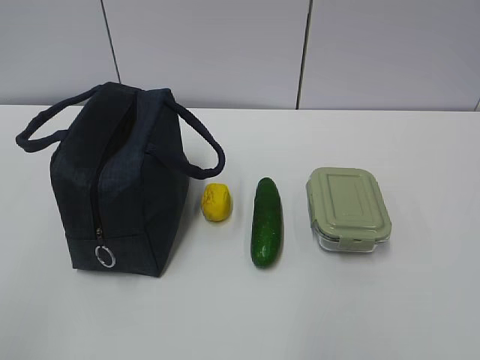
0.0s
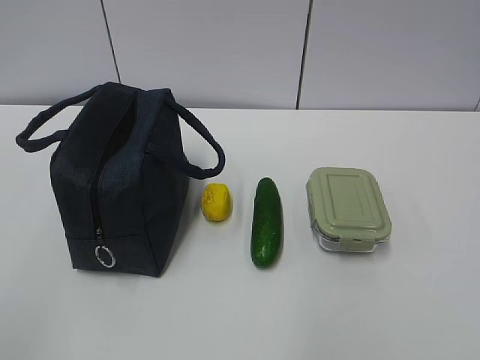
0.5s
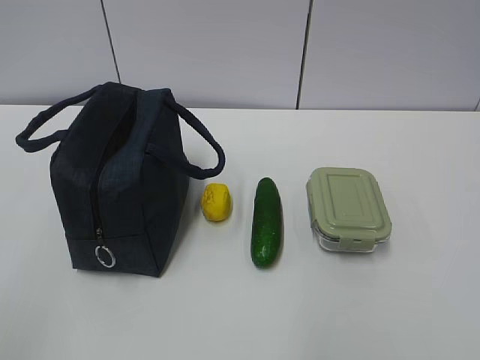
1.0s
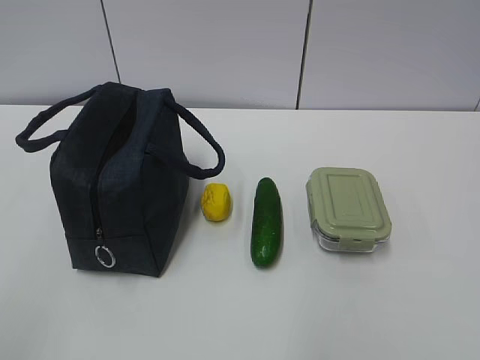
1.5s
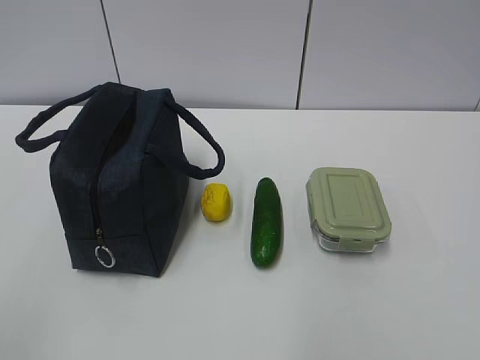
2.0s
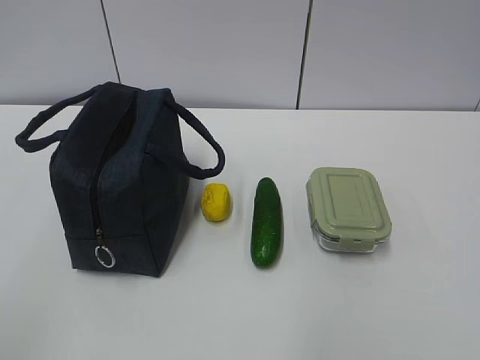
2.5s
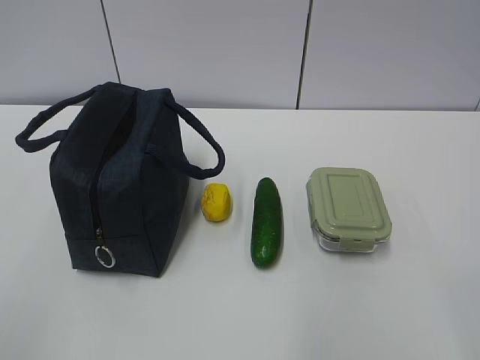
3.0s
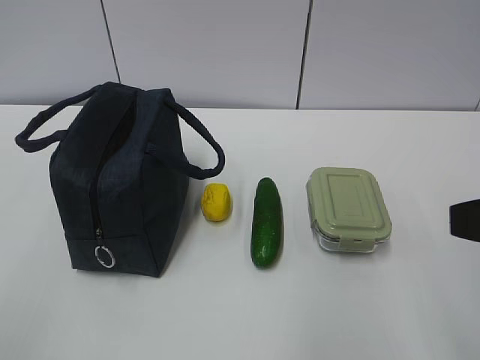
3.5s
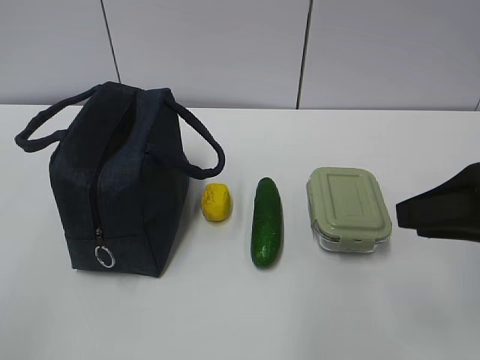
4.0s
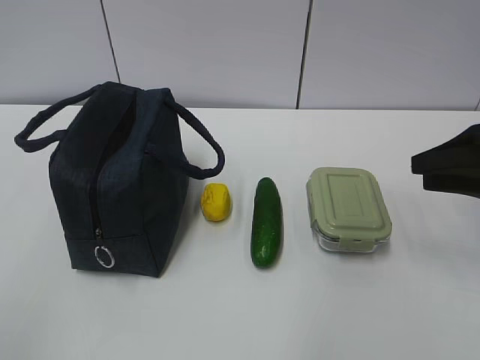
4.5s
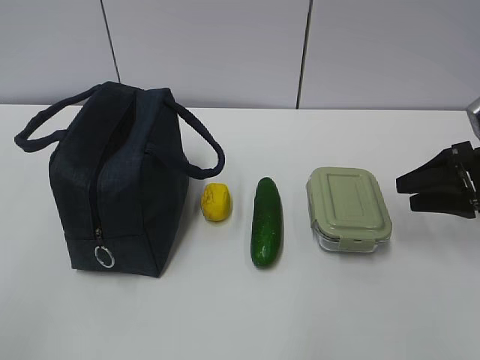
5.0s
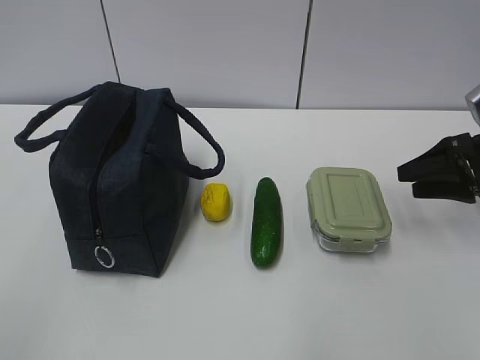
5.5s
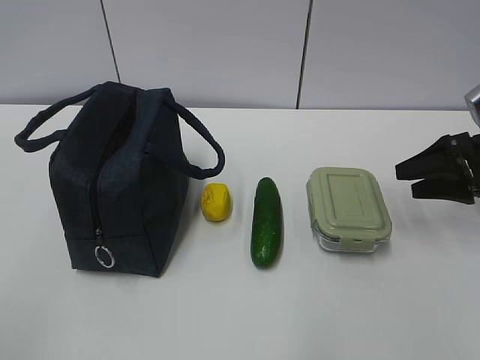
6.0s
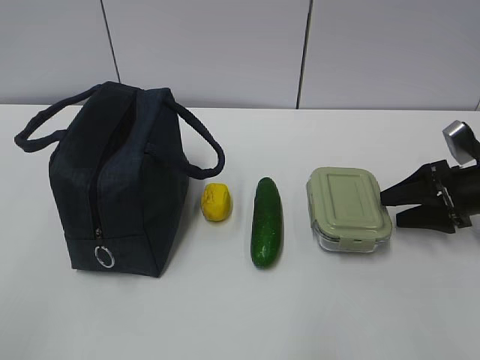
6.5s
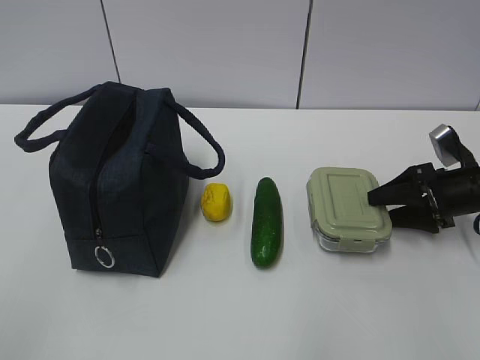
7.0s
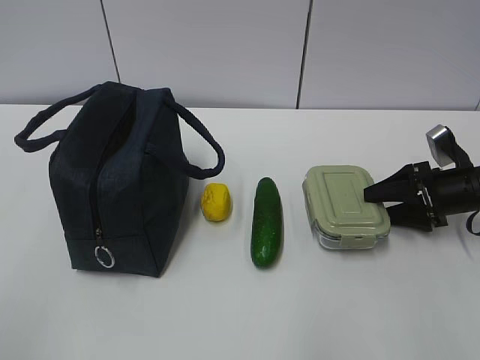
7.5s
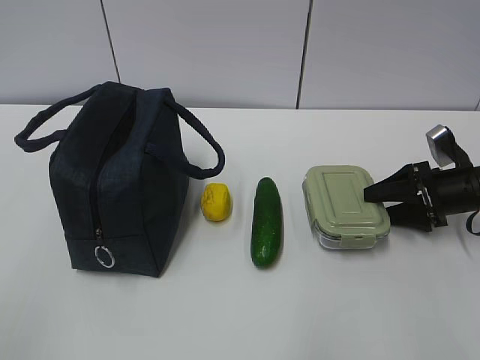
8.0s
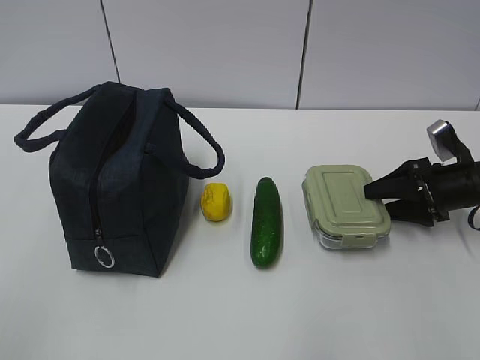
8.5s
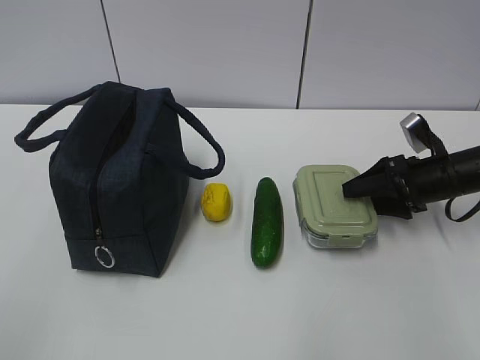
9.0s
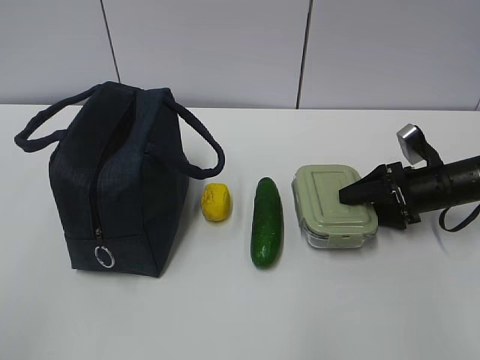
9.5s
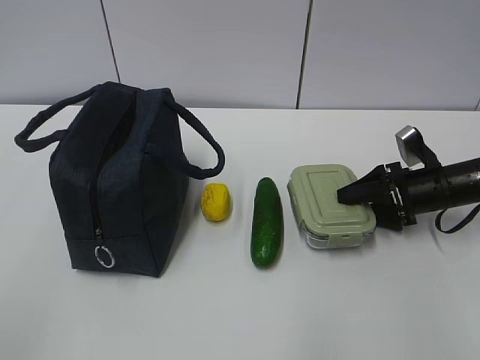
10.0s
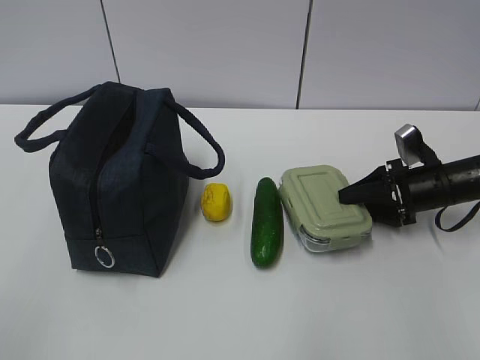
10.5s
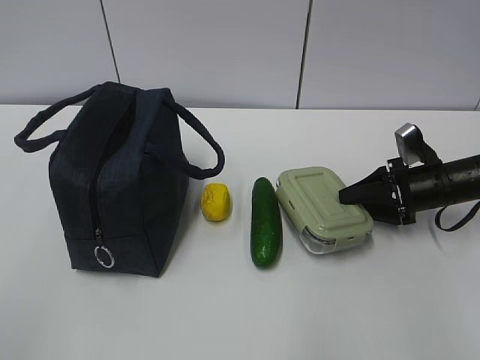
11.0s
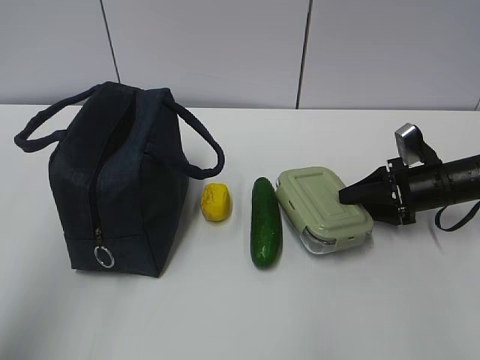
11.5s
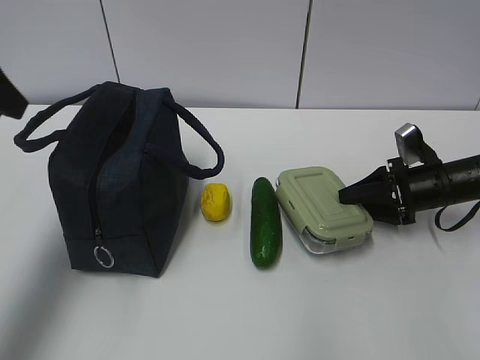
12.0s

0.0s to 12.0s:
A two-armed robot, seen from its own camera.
2.0s to 4.0s: The right gripper travels forward by approximately 20 cm.
4.0s to 6.0s: The right gripper travels forward, to the right and downward by roughly 20 cm.
6.0s to 8.0s: The right gripper goes about 5 cm downward.
8.0s to 10.0s: There are only small adjustments of the grippers.
10.0s to 12.0s: The right gripper closes up, while the left gripper moves forward, approximately 30 cm.

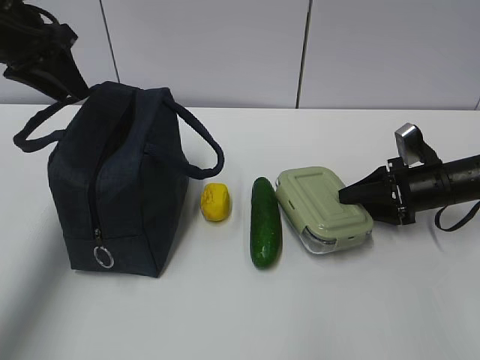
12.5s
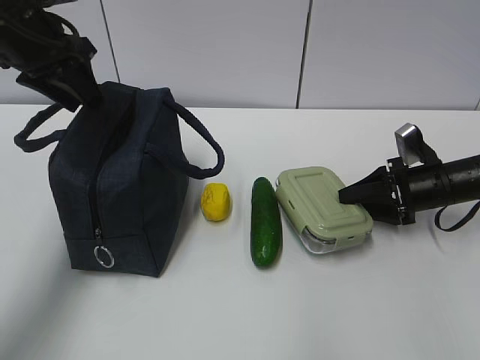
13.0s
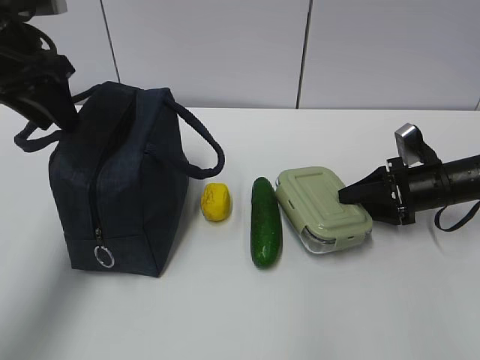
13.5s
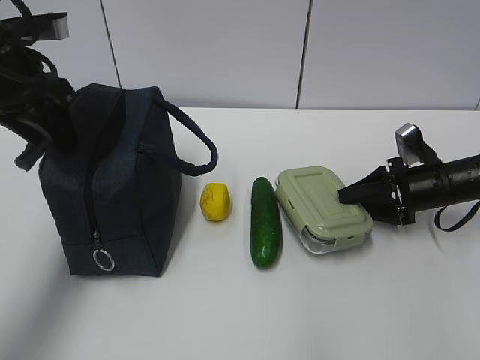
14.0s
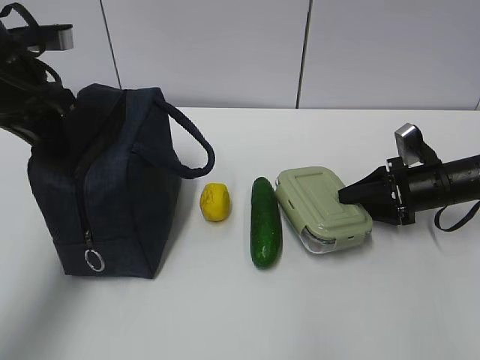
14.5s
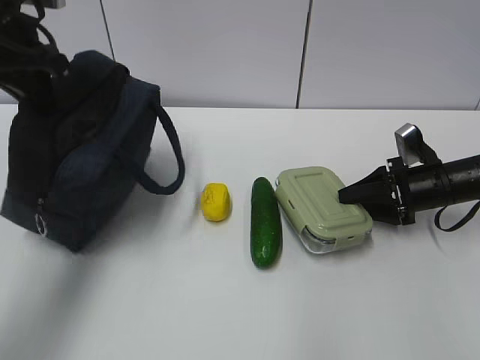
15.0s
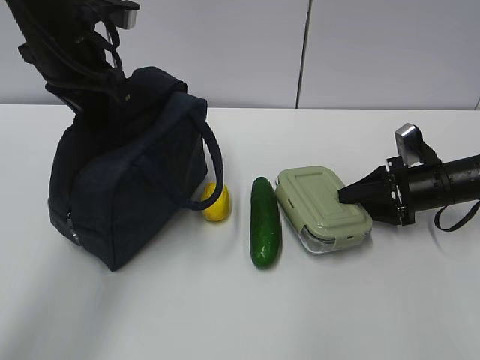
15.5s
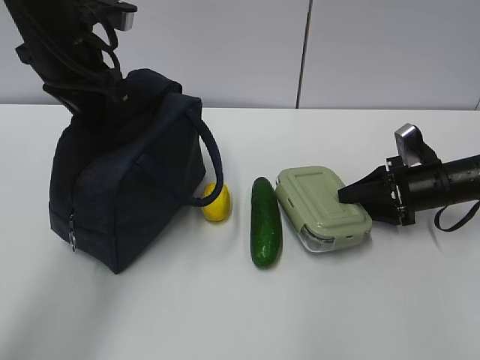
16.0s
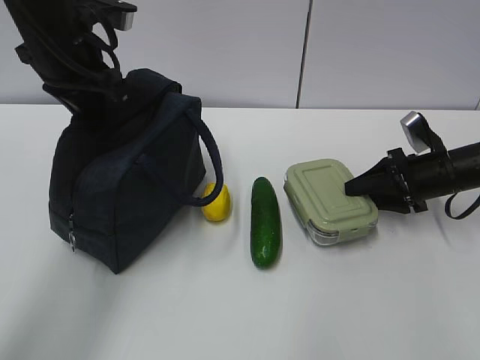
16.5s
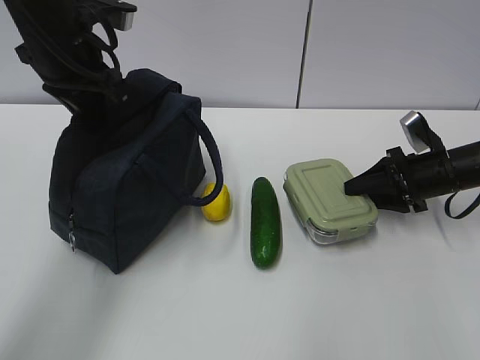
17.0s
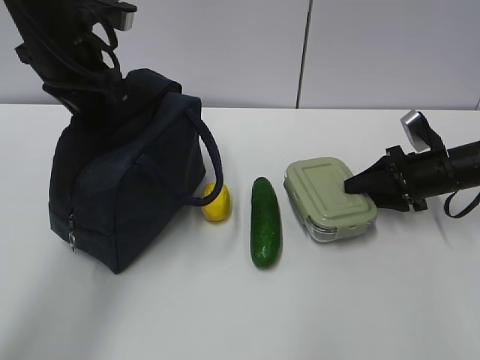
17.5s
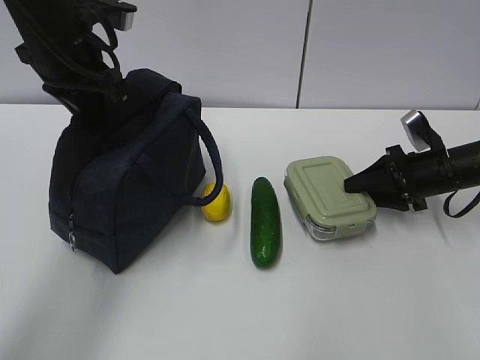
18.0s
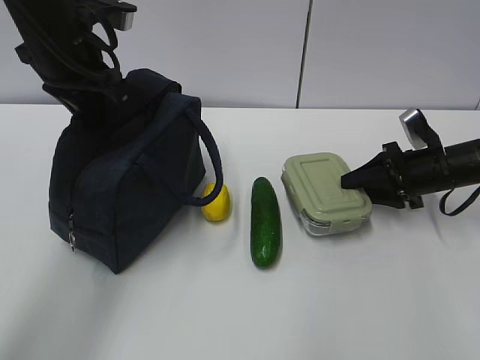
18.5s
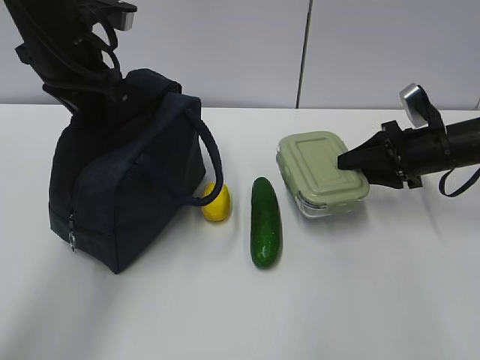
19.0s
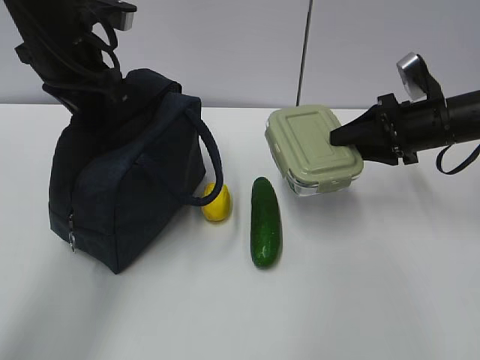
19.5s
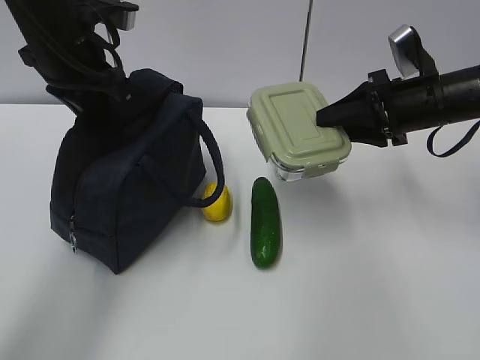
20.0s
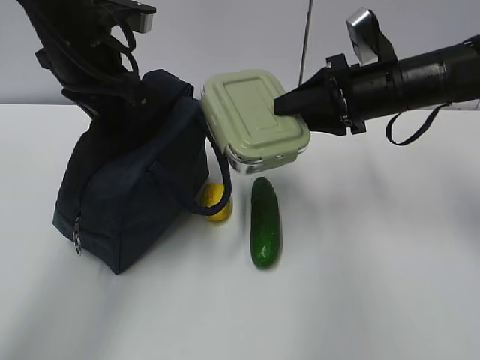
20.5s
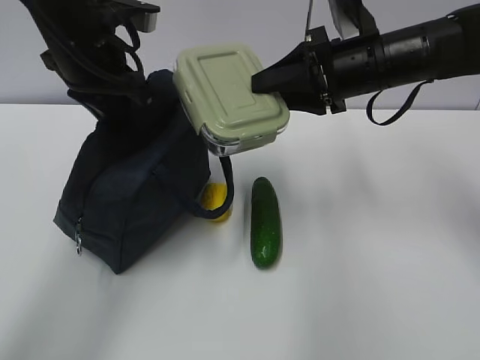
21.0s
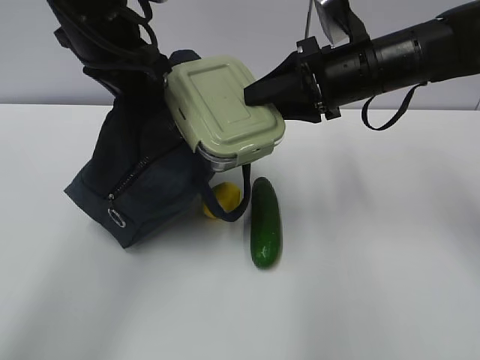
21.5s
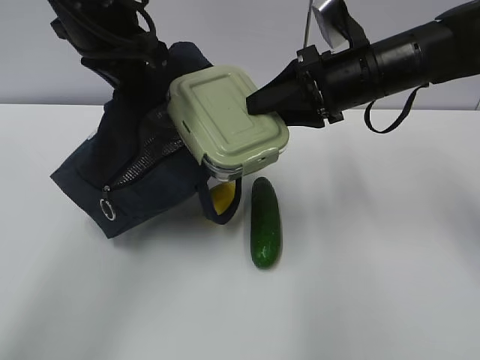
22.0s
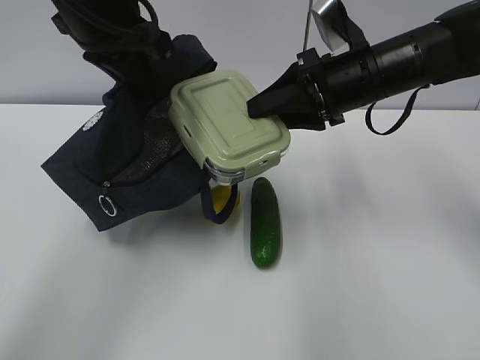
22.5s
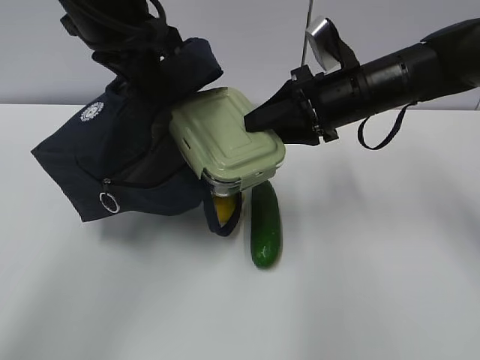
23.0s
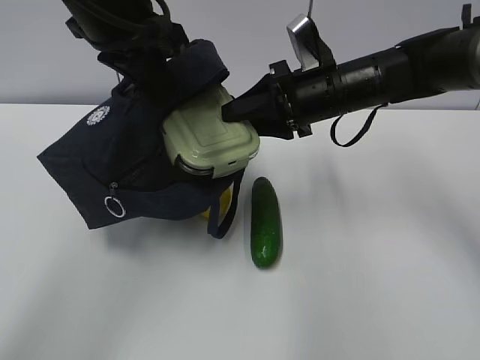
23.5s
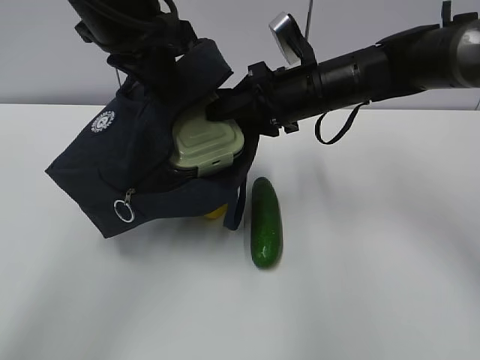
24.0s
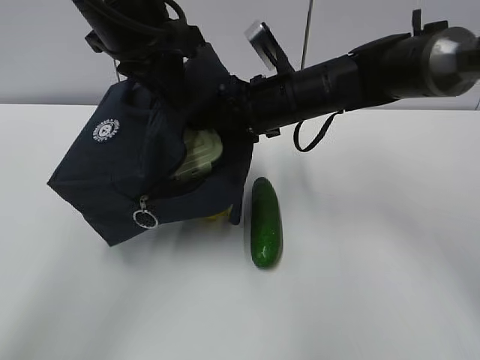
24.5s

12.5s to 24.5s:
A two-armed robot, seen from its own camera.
Step, 15.5s to 17.0s: Grab the lunch bag with your left hand.
Step, 17.5s to 21.5s: Place it into the bag with your right hand.
12.5s to 14.5s: The left gripper shifts about 5 cm backward, and closes.
14.5s to 16.5s: The left gripper goes about 5 cm to the right.
16.5s to 18.5s: Neither gripper changes place.
18.5s to 20.5s: The right gripper heads upward and to the left, covering some 15 cm.
20.5s to 22.5s: The left gripper changes place by approximately 5 cm.
22.5s to 24.5s: The right gripper is displaced to the left by roughly 5 cm.

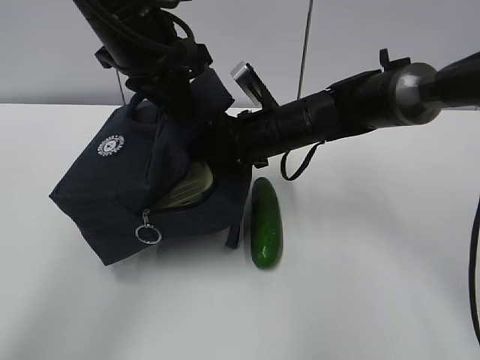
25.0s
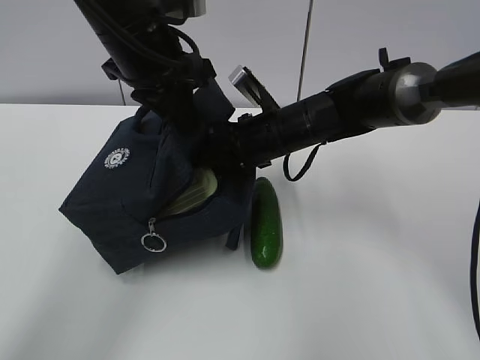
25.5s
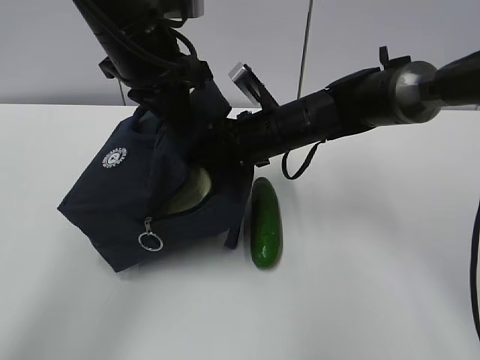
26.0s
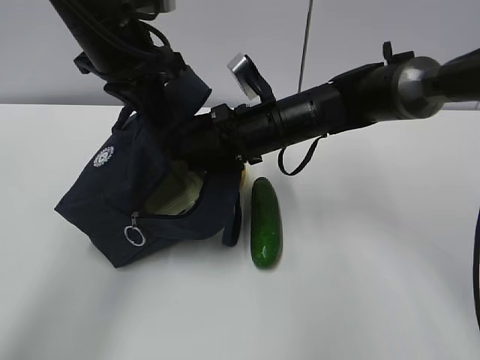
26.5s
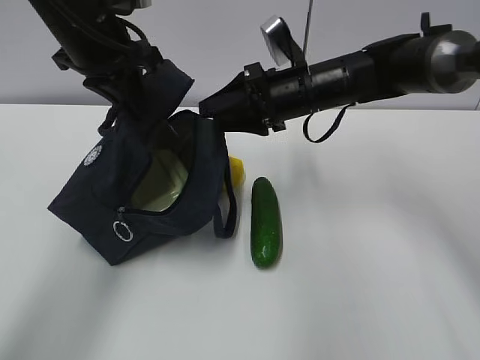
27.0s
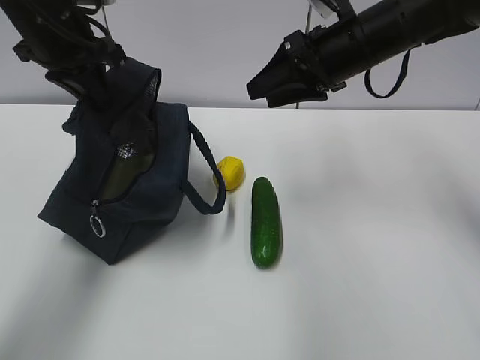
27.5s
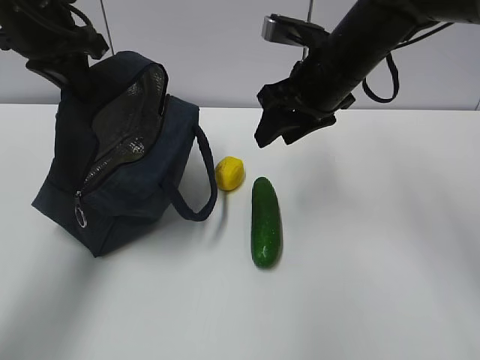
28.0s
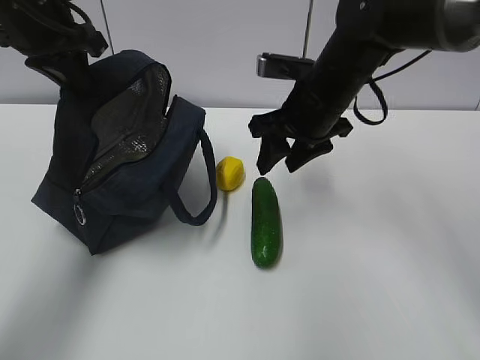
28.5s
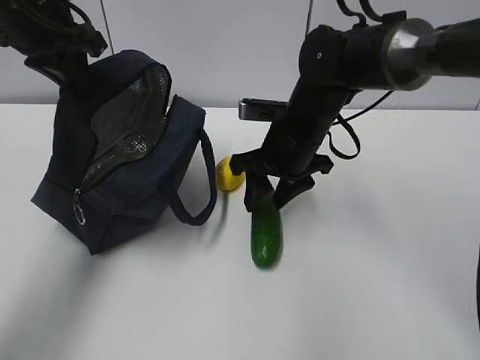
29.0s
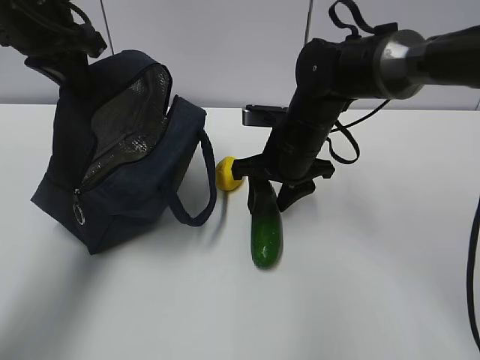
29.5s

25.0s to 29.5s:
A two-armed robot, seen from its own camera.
Step, 25.5s to 28.0s: Place it into the bag with your right hand.
25.0s to 27.0s: The right gripper shifts by about 5 cm, while the left gripper is displaced to the left by approximately 5 cm.
27.0s to 29.5s: The right gripper ends up about 5 cm from where it was. The left gripper heads to the left, covering some 5 cm.
